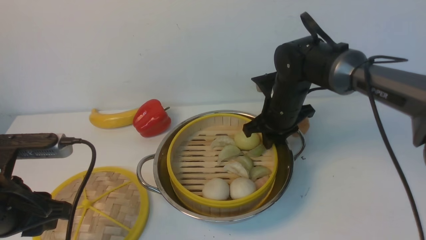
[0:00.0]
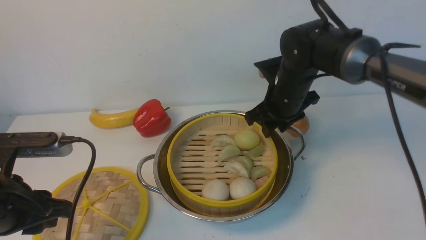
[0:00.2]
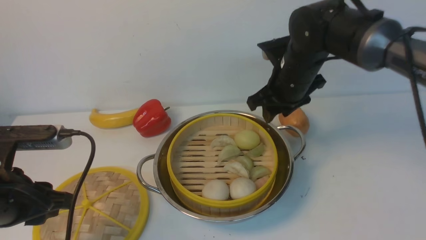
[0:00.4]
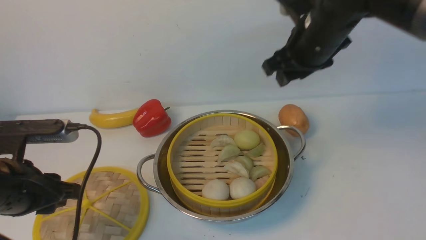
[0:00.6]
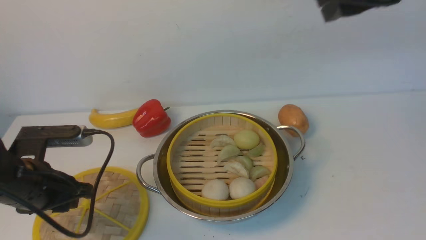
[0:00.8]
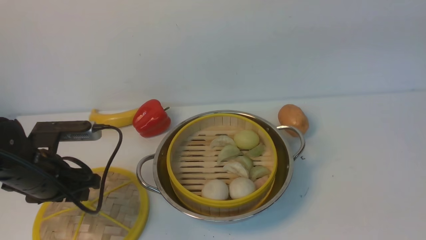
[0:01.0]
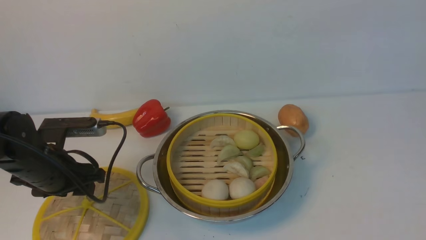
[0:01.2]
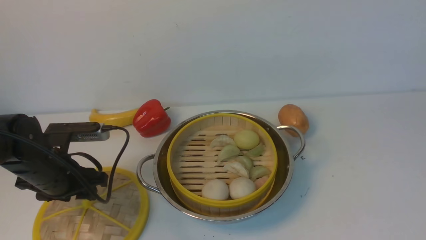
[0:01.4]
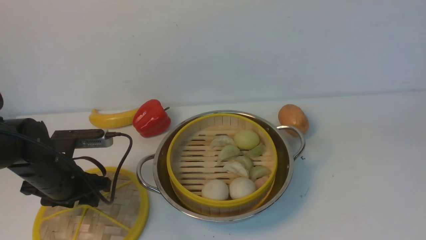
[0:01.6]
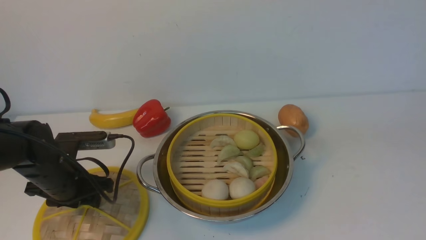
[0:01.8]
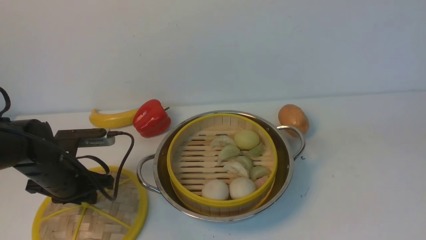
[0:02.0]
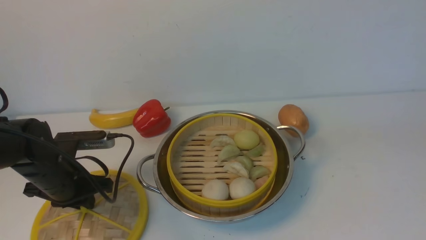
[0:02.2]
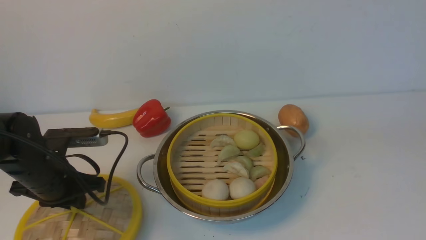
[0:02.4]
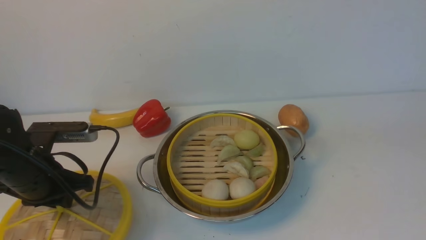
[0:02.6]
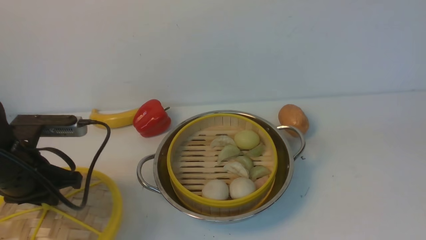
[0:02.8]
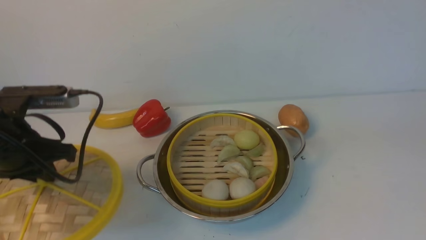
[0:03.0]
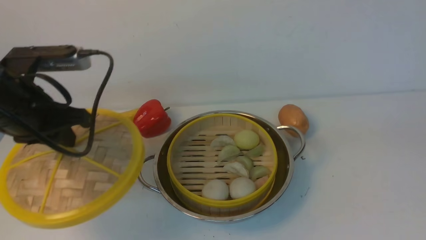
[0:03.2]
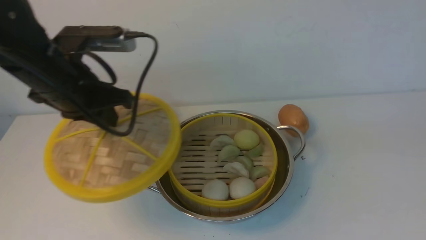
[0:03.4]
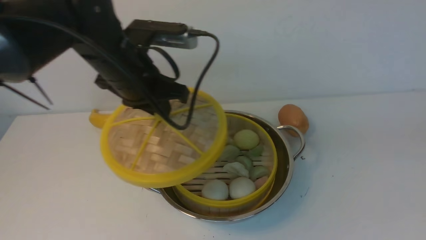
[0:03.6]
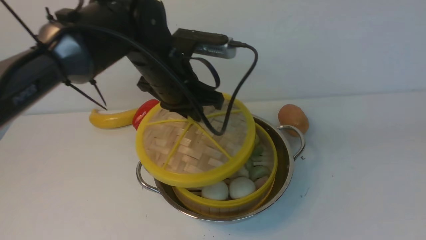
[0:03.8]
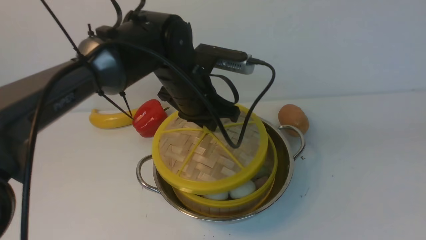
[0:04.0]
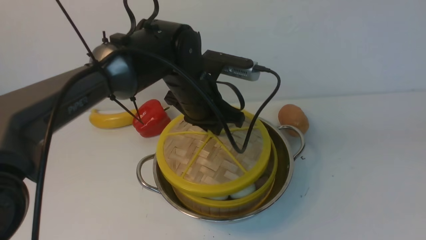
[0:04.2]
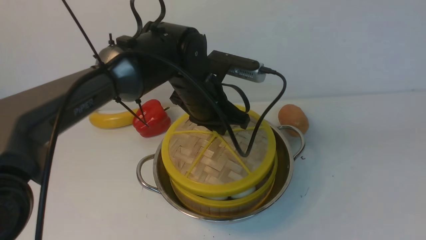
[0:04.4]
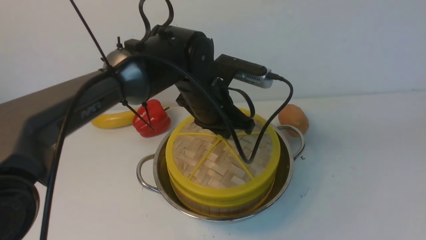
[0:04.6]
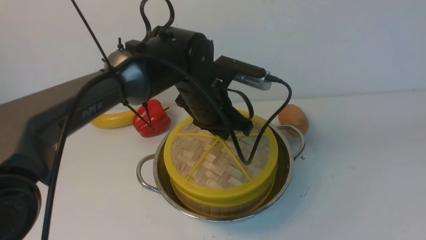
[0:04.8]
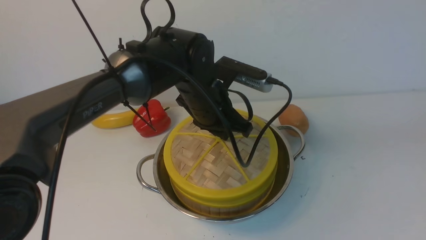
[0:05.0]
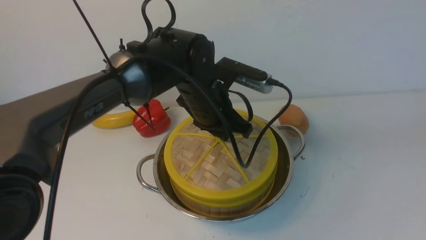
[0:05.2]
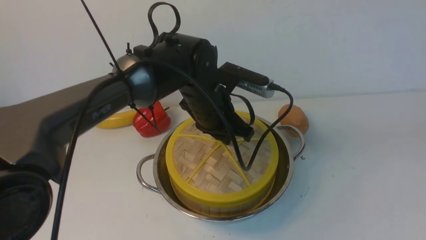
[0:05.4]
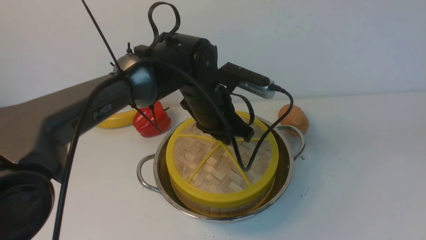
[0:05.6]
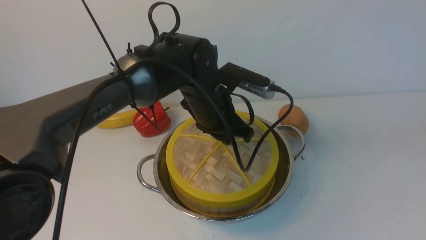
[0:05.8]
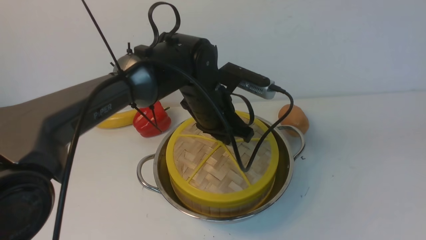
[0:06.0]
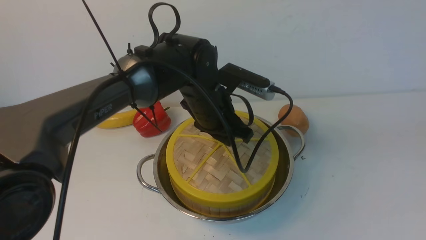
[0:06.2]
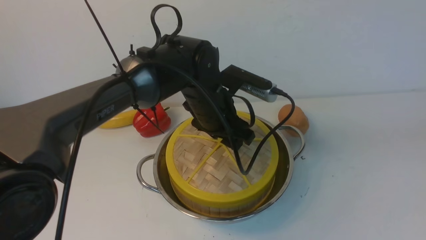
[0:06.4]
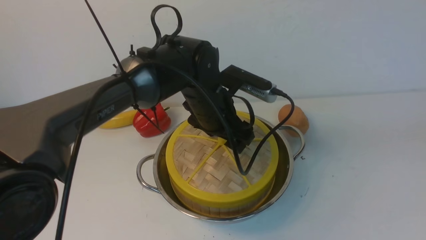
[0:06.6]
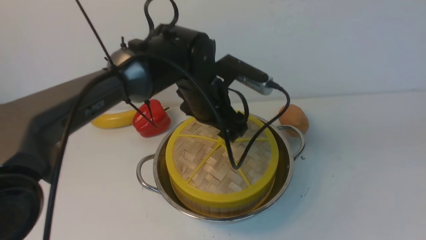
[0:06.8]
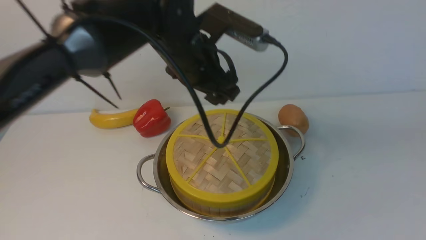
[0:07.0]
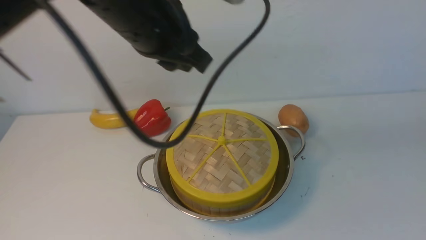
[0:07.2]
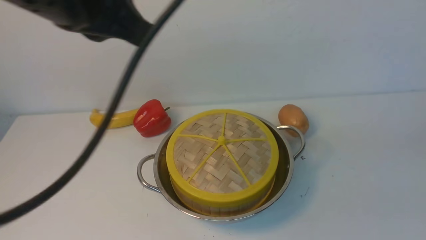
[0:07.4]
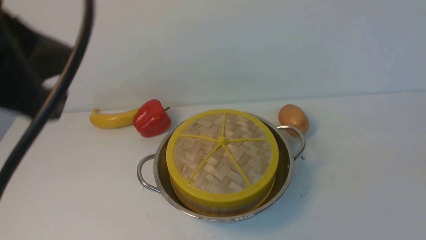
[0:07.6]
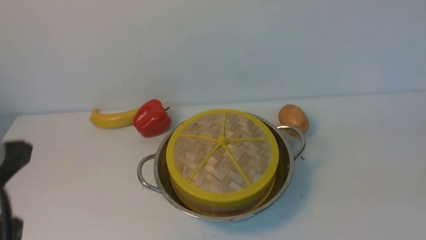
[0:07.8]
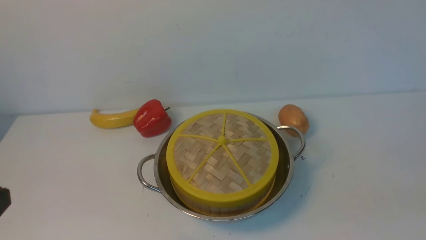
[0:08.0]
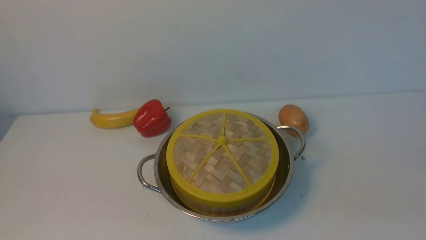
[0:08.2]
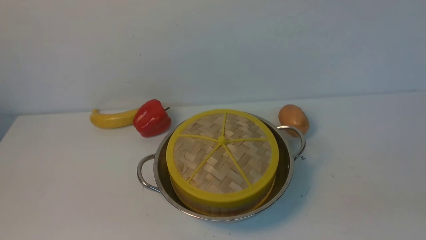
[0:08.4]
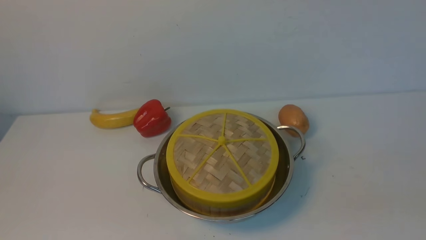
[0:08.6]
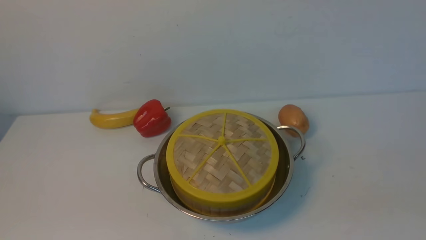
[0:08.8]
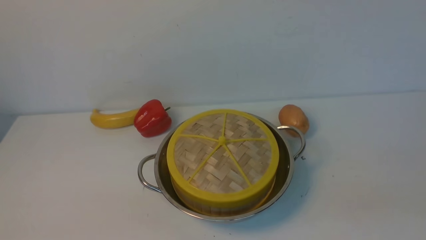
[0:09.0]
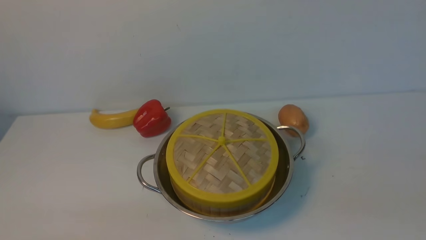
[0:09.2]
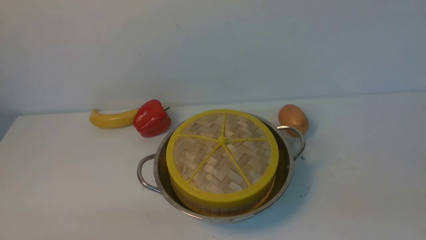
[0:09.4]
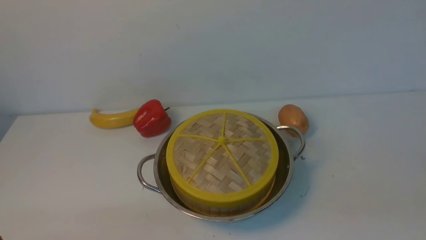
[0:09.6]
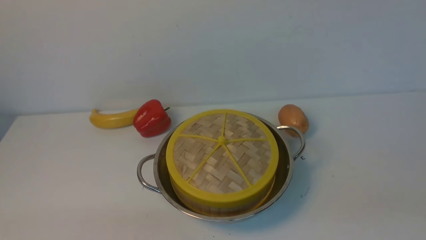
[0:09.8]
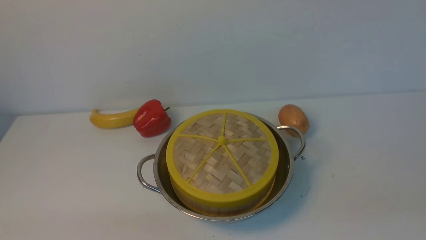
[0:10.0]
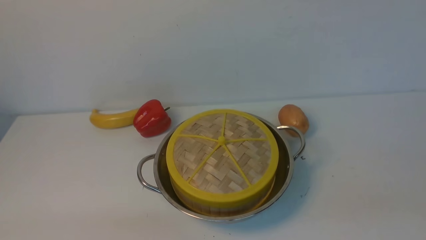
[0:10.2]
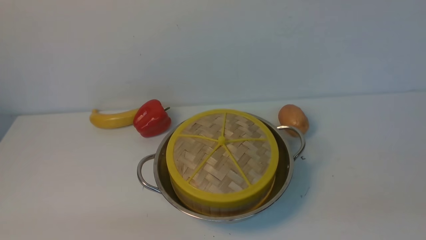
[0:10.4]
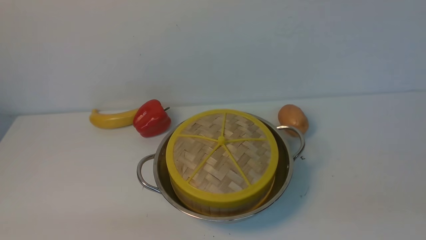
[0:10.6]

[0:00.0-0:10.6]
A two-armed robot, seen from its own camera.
Task of the whole recording: place the steamer in the pot on the white table, and put the lid on the steamer.
Step, 0:01.0 to 0:03.2: use the left arm to lift the lid of the steamer.
Step, 0:03.4 to 0:07.2: use the left arm to place the steamer lid on the steamer.
0:00.0 to 0:01.6: The right gripper moves backward, upward and to the right, some 40 cm, and opens up, while the left gripper goes roughly 15 cm forward and downward.
0:01.6 to 0:03.0: The left gripper moves upward, approximately 10 cm, and closes up.
0:03.0 to 0:04.6: The left gripper goes about 25 cm to the right and forward.
0:04.6 to 0:06.0: The grippers move only a little.
0:06.0 to 0:07.6: The left gripper is displaced backward, upward and to the left by about 35 cm, and opens, then closes again. Meanwhile the right gripper shifts approximately 5 cm downward, and closes up.
0:07.6 to 0:09.0: The right gripper shifts by roughly 5 cm. The left gripper heads downward, backward and to the left, covering approximately 25 cm.

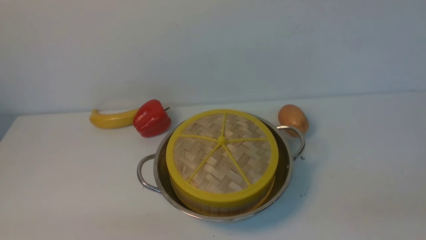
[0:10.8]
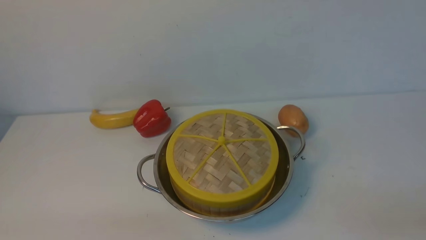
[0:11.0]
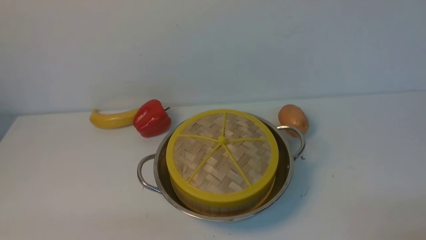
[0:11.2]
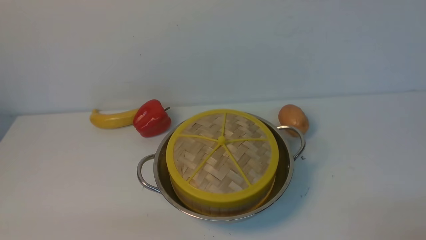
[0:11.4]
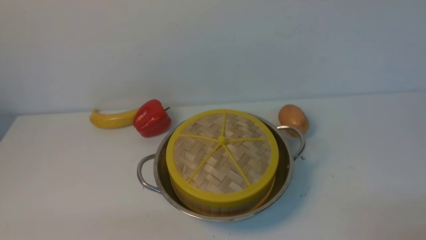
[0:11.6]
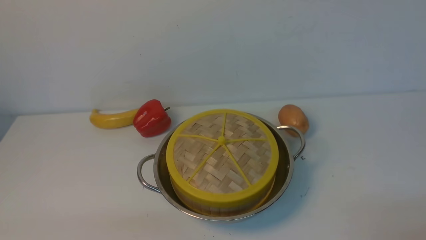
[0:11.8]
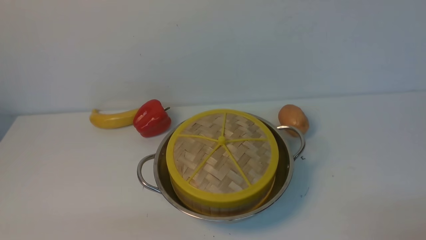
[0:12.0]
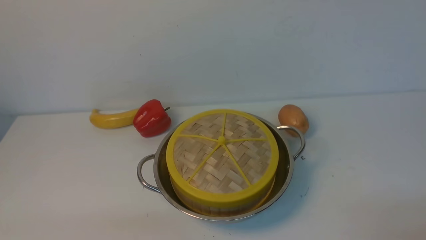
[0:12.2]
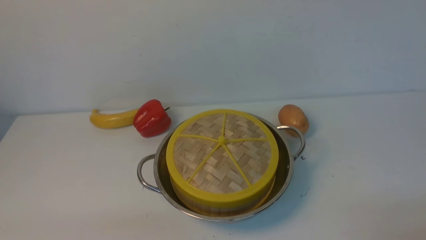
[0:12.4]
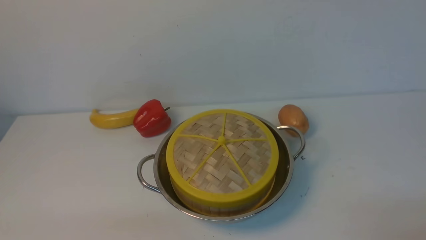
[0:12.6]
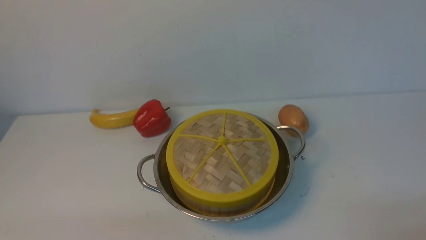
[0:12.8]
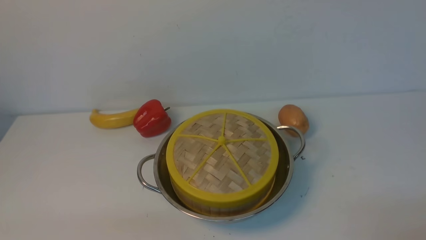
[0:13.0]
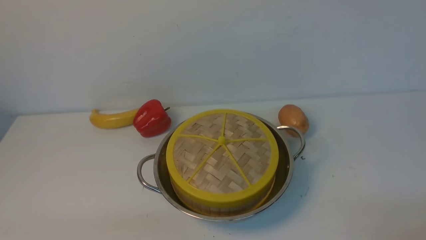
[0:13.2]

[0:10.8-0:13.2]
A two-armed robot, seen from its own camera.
Task of the whole recording: place the steamer in the pot on the white table, and put the lid on the steamer.
0:12.0 to 0:13.2: Both grippers stay put.
